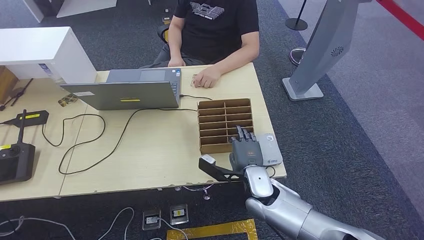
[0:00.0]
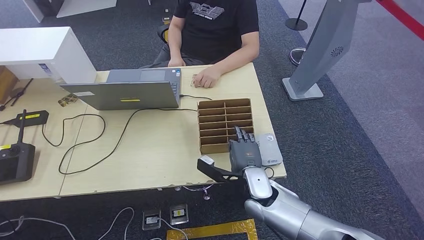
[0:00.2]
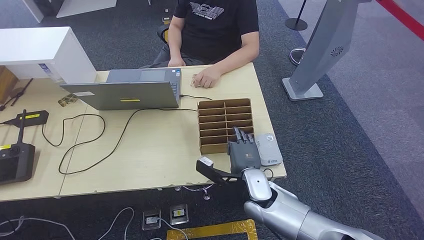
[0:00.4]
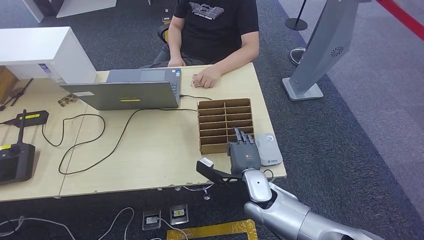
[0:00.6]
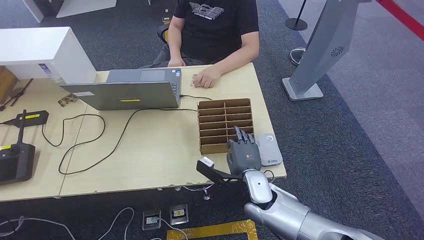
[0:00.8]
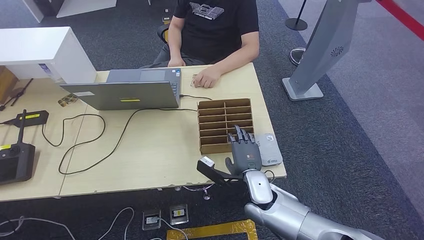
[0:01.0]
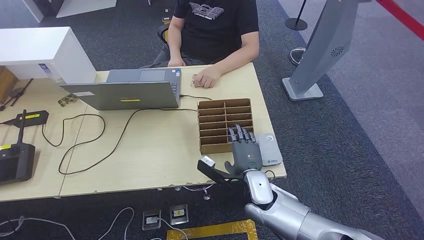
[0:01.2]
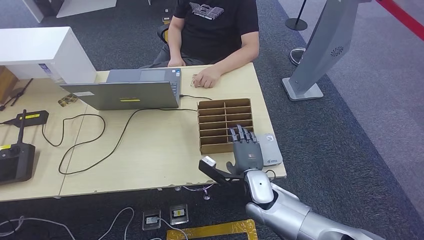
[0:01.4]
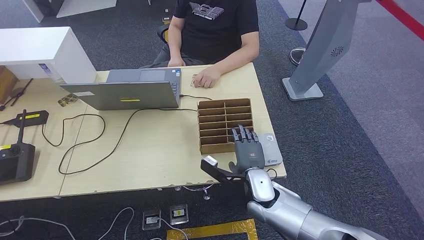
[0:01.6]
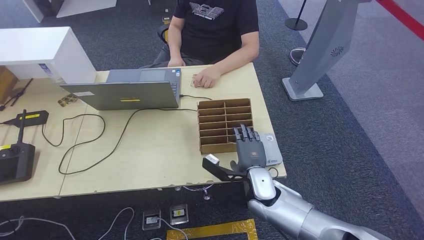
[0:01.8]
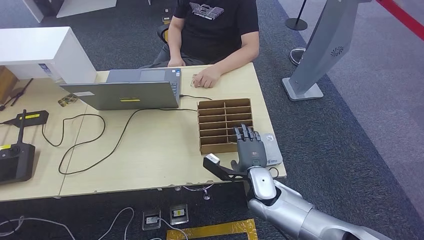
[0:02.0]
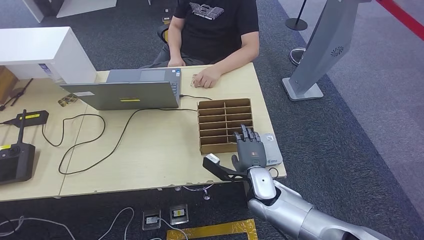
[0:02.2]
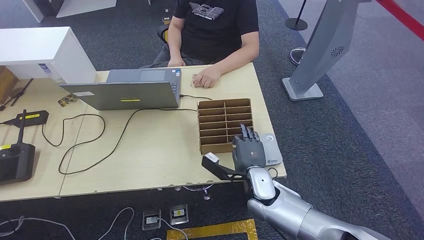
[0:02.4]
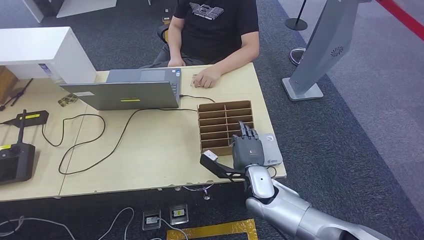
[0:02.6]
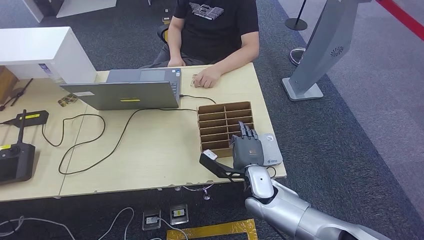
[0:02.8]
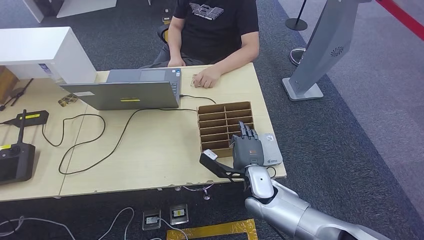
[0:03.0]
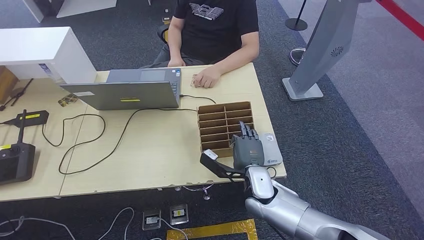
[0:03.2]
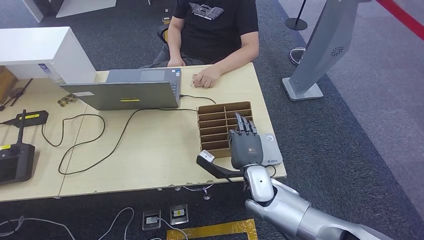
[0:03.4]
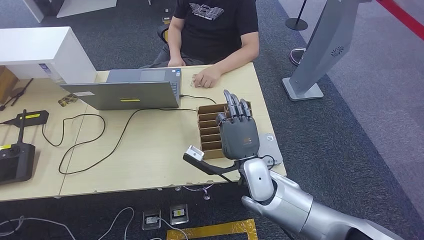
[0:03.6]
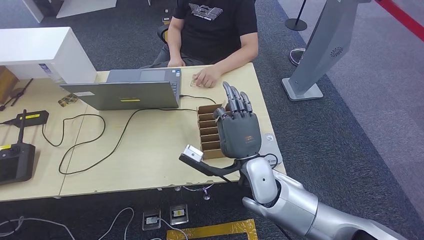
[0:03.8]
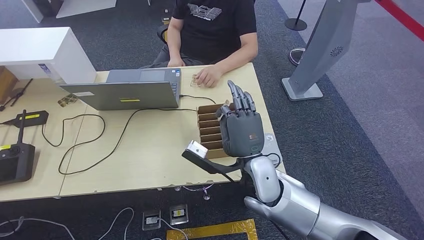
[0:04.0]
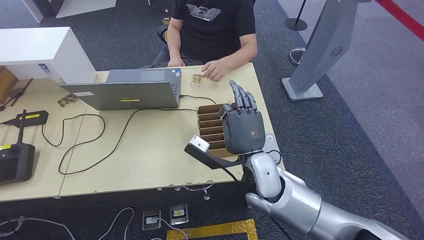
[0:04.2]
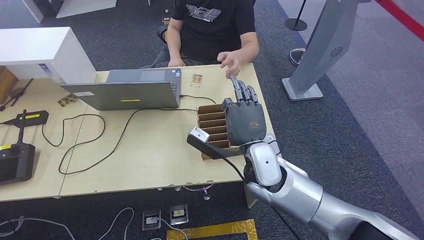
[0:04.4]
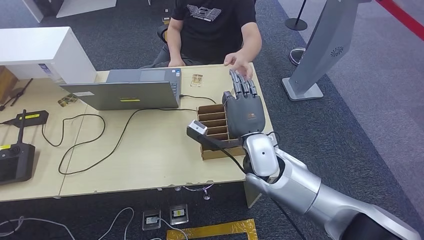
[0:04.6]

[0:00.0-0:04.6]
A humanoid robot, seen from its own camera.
Step, 0:00.0 to 0:03.8: Pick up the room key from the key card box.
Step, 0:04.0 to 0:04.6: Hand the room key to the person.
0:00.0 to 0:03.0: There are only small adjustments of the hands.
0:03.0 to 0:04.6: The right hand heads upward, covering roughly 10 cm.
